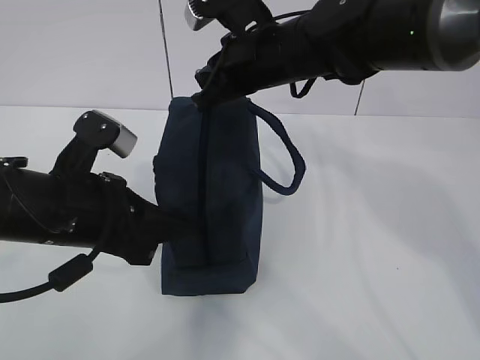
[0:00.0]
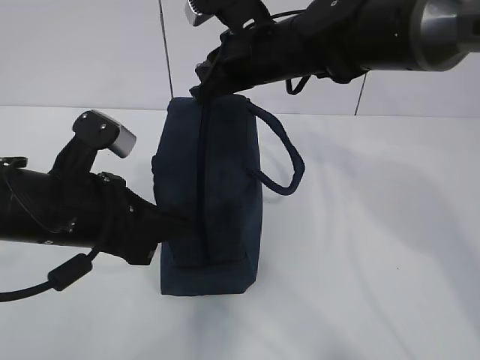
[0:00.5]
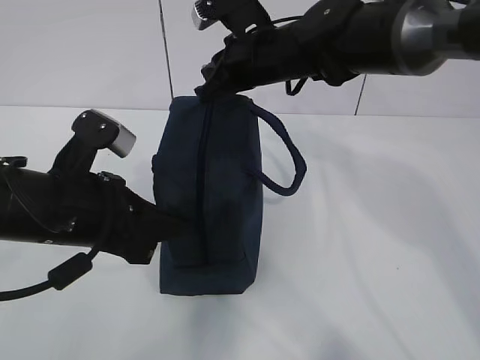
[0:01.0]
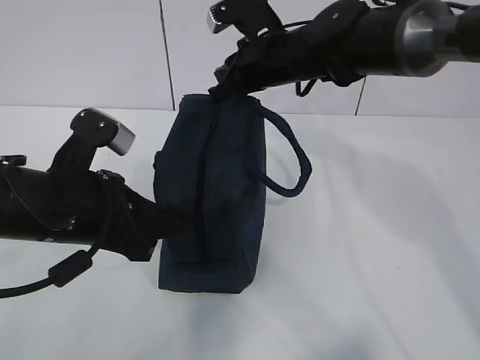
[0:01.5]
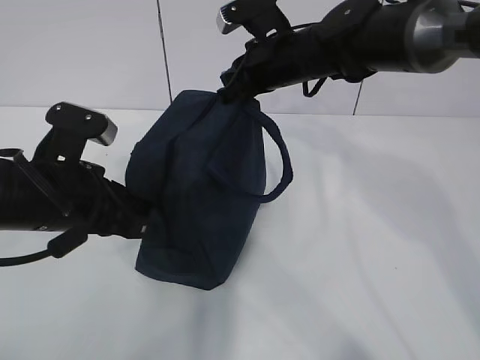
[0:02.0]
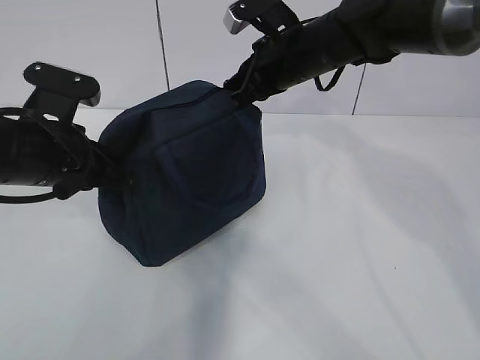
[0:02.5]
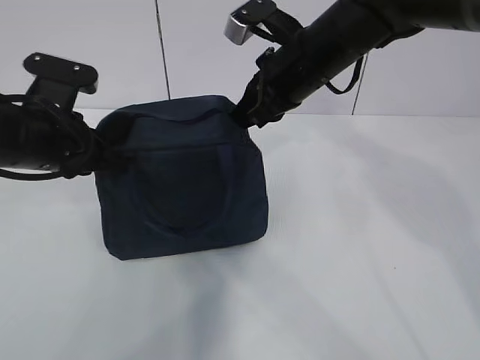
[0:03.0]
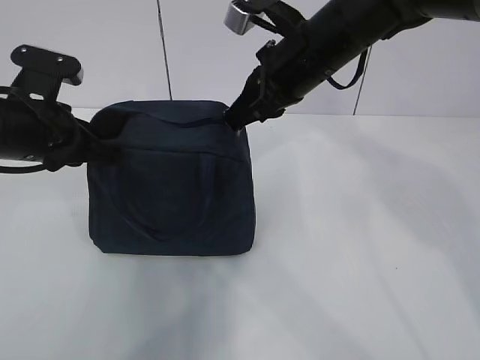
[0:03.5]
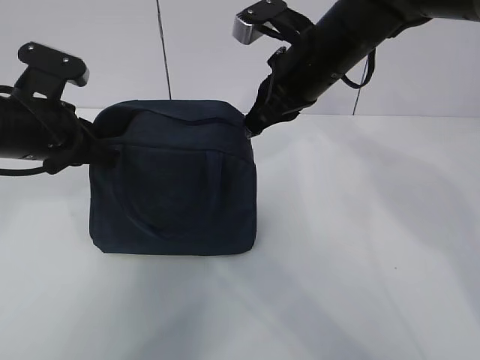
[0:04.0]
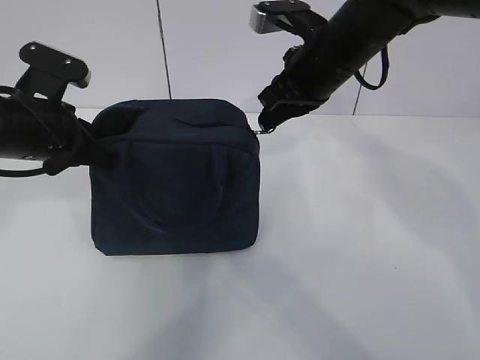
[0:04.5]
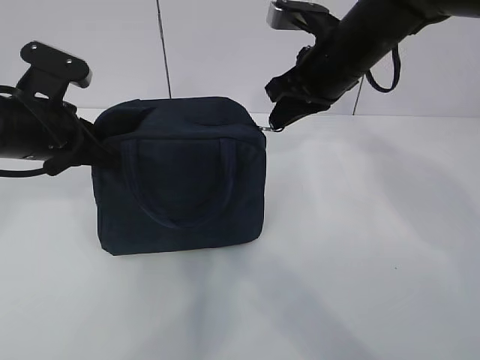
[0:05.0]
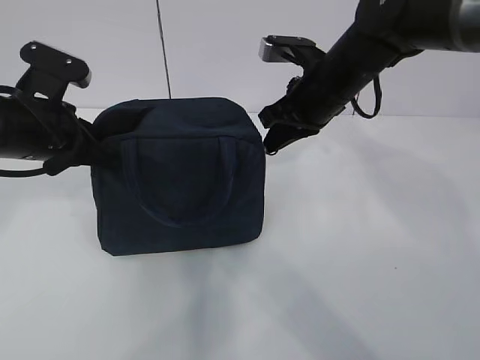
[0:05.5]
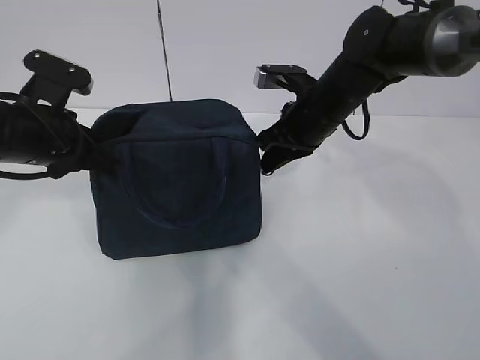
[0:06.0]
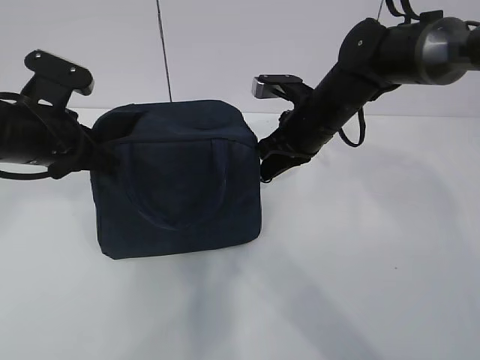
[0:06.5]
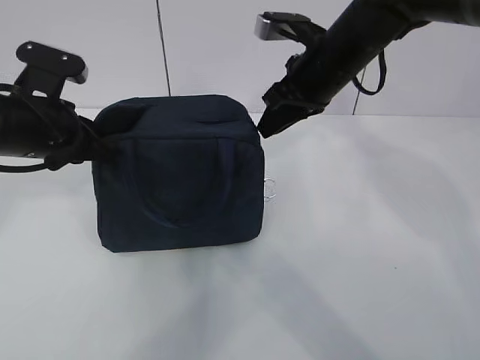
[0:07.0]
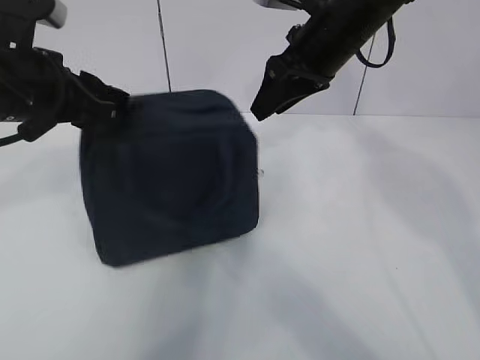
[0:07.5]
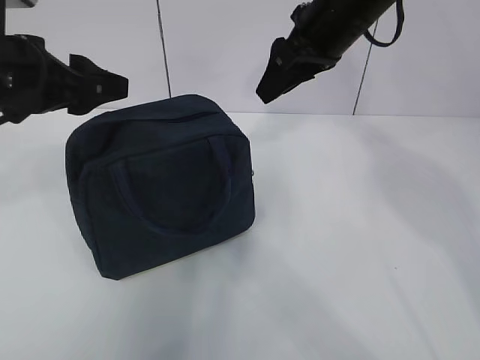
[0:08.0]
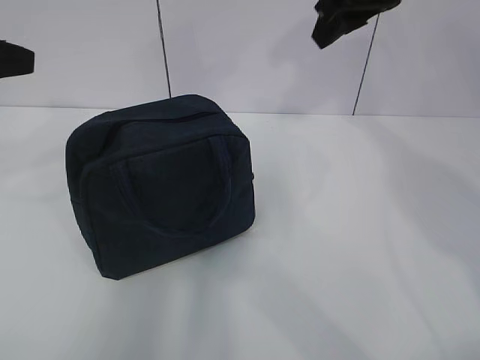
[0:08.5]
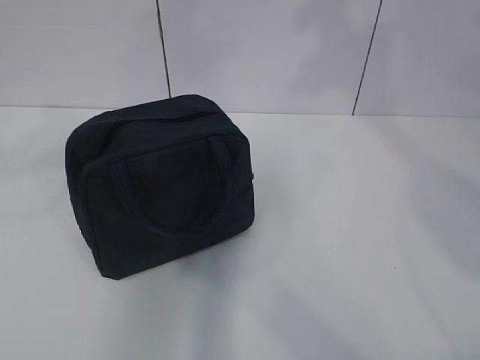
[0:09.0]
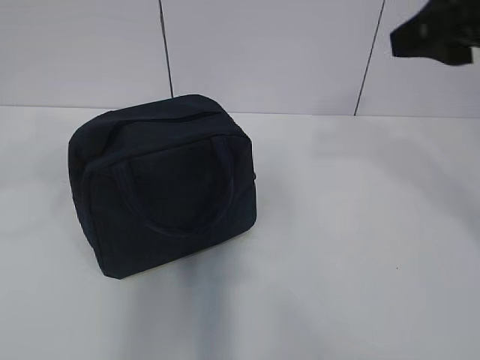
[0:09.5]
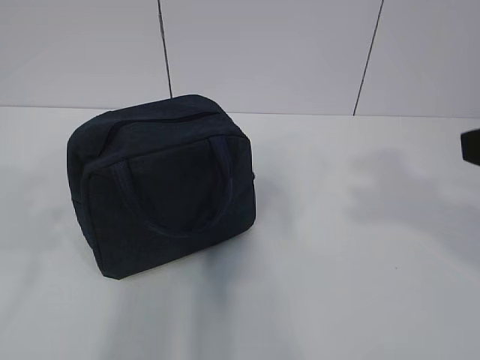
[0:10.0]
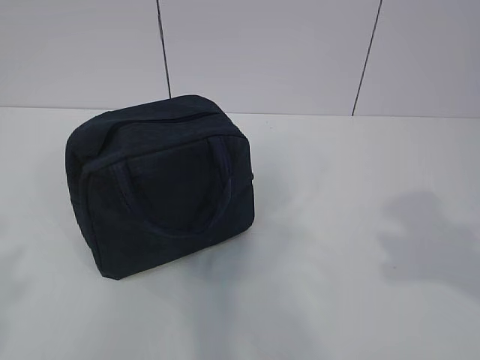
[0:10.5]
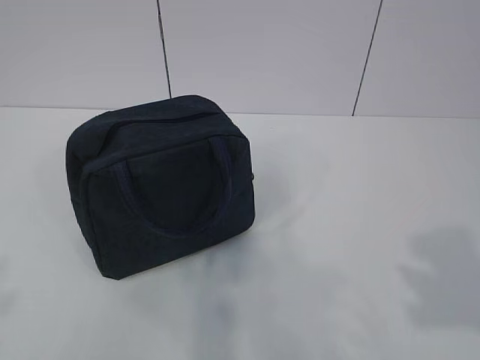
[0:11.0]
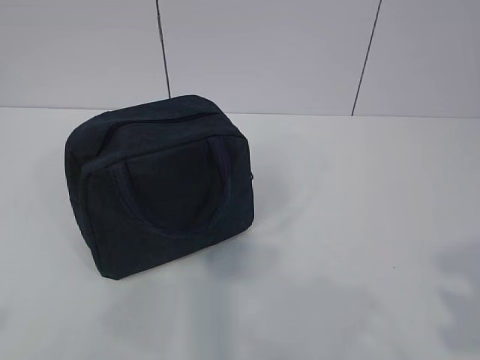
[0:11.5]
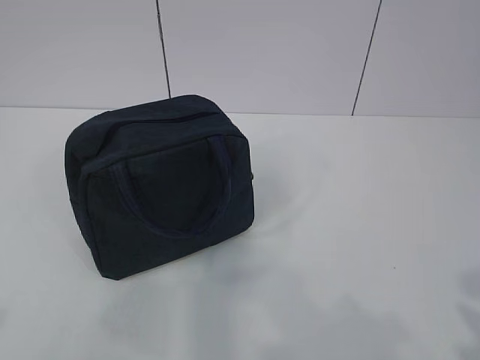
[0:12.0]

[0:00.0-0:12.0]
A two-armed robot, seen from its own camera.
0:00.0 to 0:02.0: The right gripper heads forward, covering roughly 5 cm.
0:02.0 to 0:04.0: The right gripper moves backward, some 5 cm; the left gripper heads forward, covering roughly 5 cm.
0:04.0 to 0:06.0: The right gripper shifts roughly 10 cm downward.
0:06.0 to 0:08.0: The right gripper is displaced upward by approximately 10 cm, and opens up, while the left gripper shifts some 10 cm upward, and opens up.
0:08.0 to 0:10.0: The left gripper travels backward by approximately 20 cm, while the right gripper heads backward and to the right, covering approximately 30 cm.
0:10.0 to 0:12.0: The right gripper is displaced backward by about 15 cm; the left gripper travels backward by roughly 10 cm.

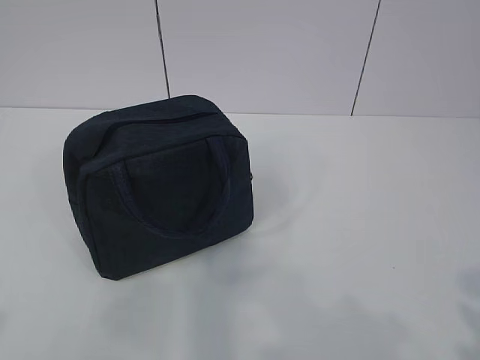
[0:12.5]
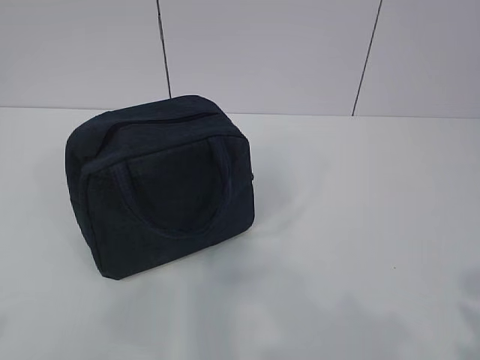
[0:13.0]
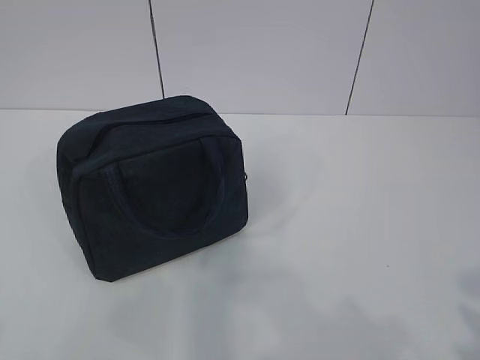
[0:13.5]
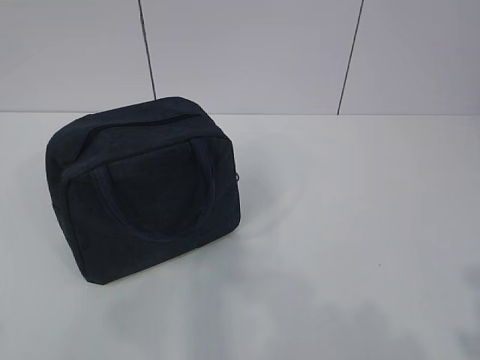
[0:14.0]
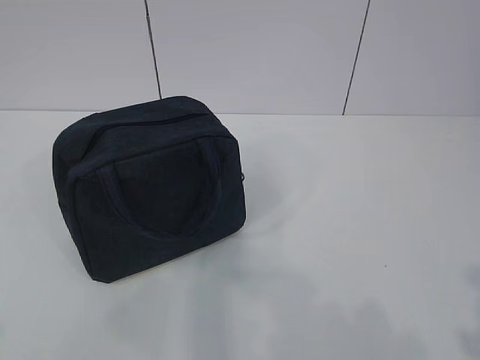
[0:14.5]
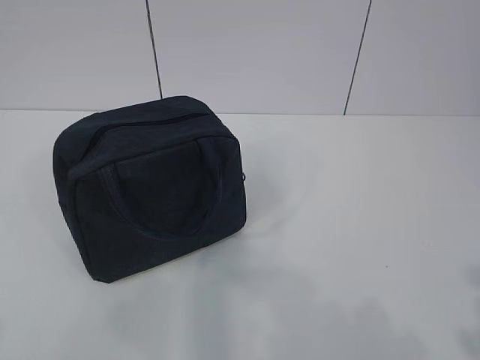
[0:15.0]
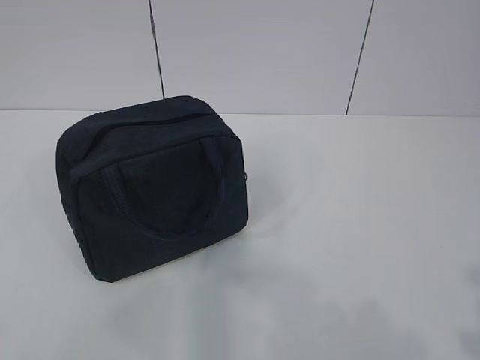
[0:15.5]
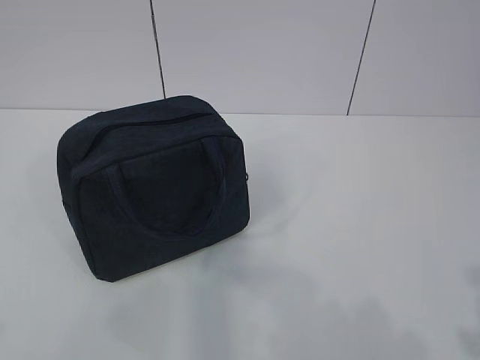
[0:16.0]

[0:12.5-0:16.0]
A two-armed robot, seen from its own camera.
0:12.5 to 0:14.5: The grippers move only a little.
0:14.5 to 0:16.0: Both grippers stay about where they are.

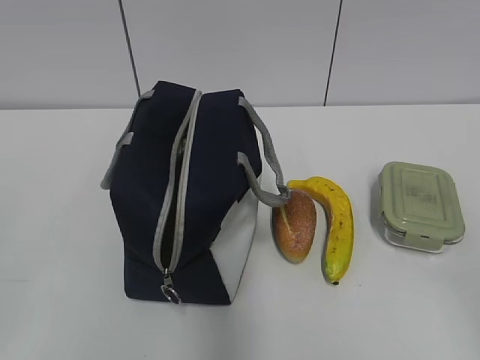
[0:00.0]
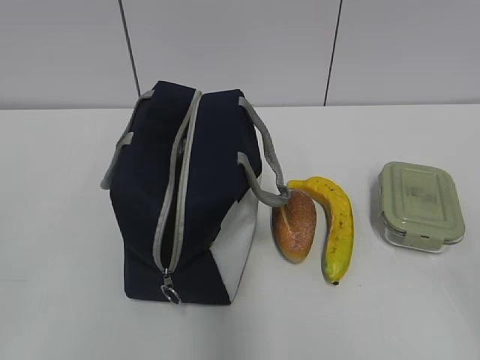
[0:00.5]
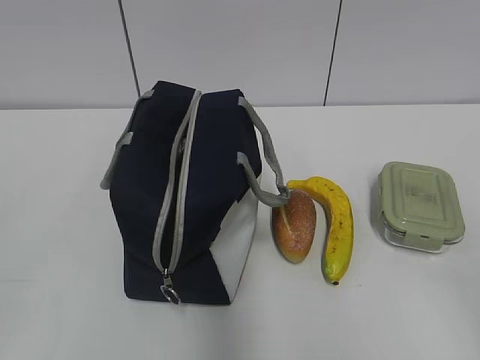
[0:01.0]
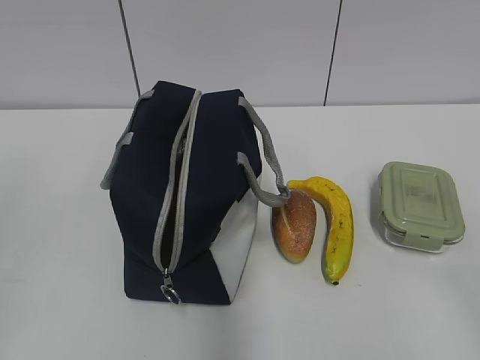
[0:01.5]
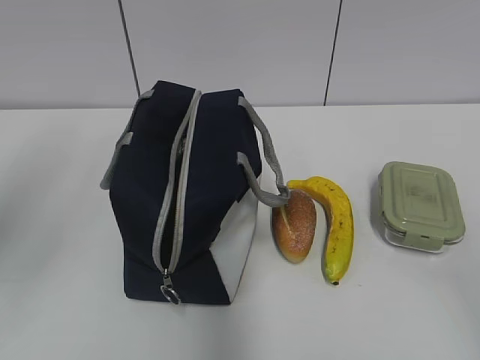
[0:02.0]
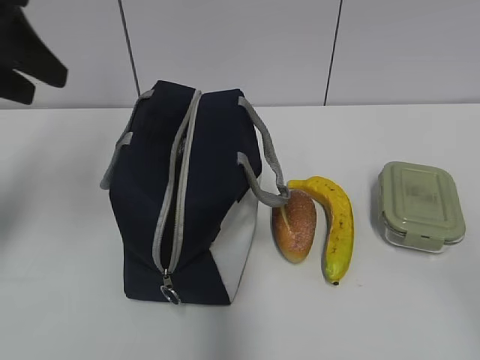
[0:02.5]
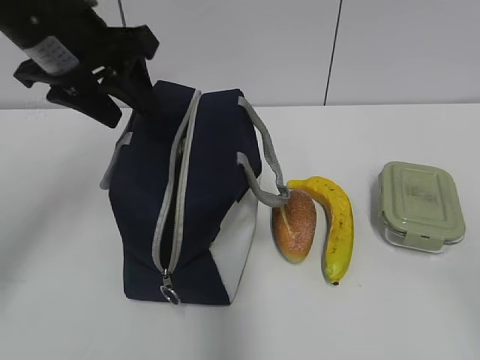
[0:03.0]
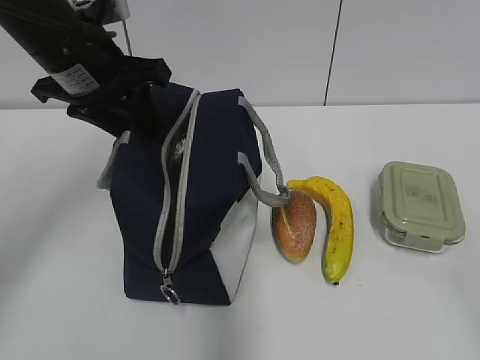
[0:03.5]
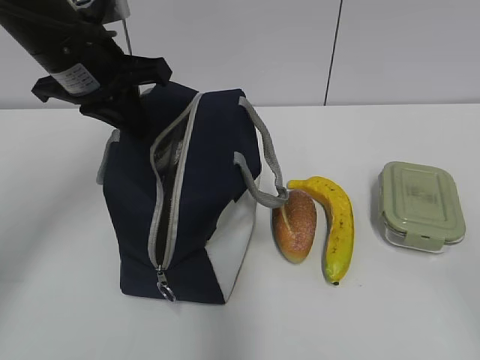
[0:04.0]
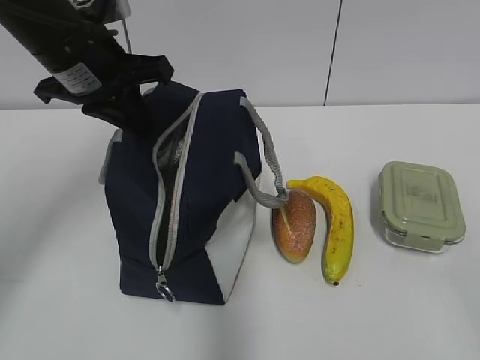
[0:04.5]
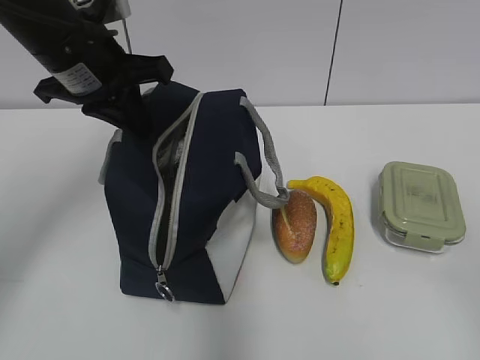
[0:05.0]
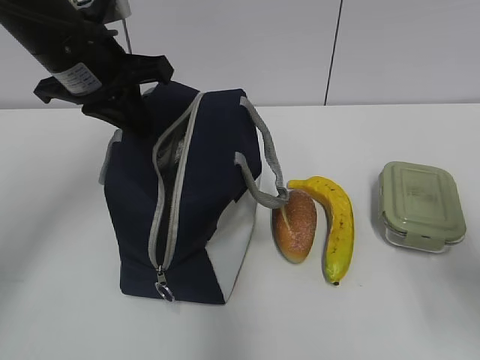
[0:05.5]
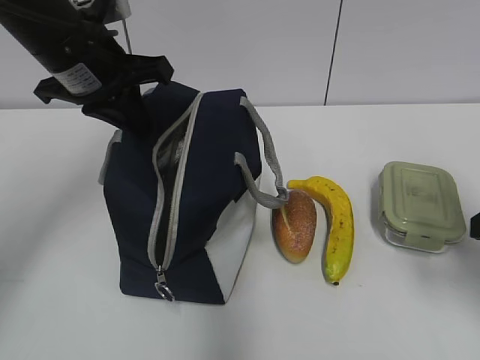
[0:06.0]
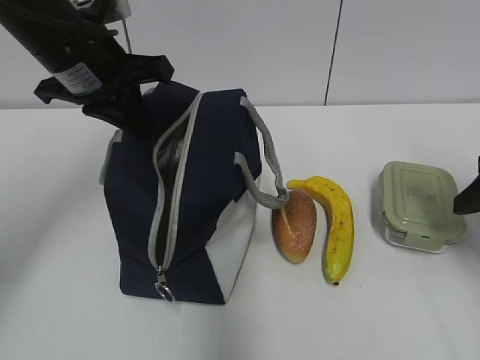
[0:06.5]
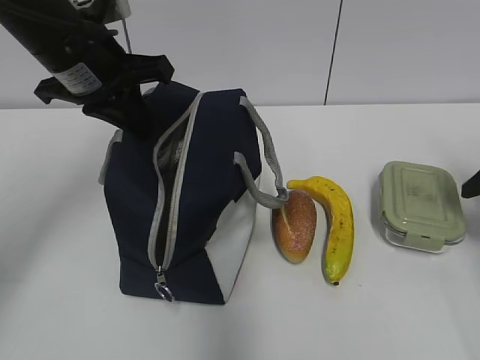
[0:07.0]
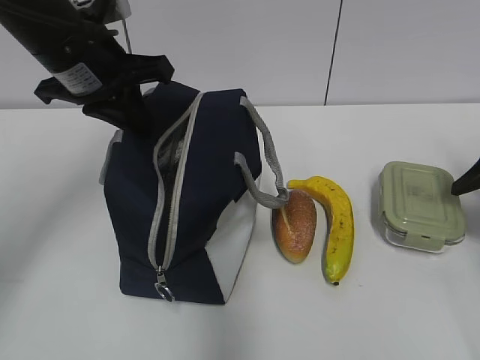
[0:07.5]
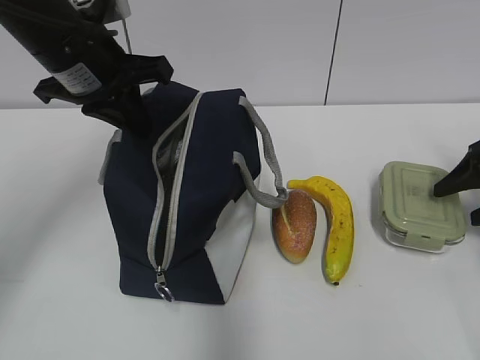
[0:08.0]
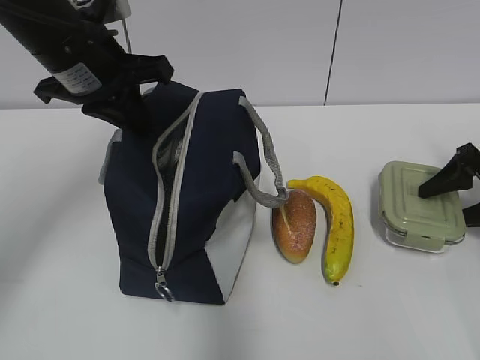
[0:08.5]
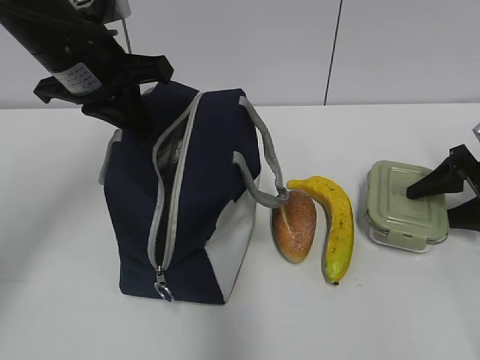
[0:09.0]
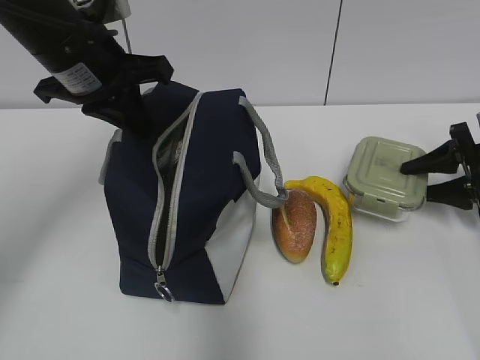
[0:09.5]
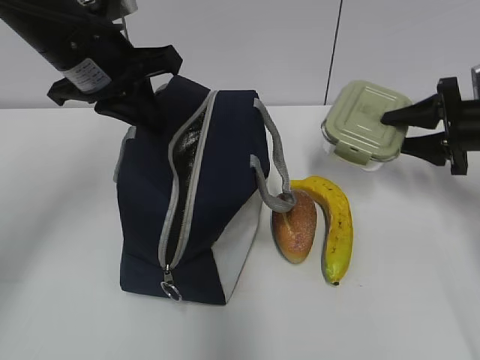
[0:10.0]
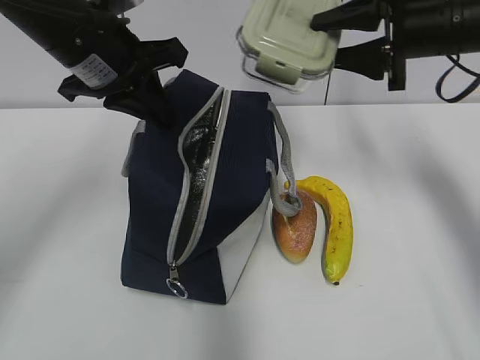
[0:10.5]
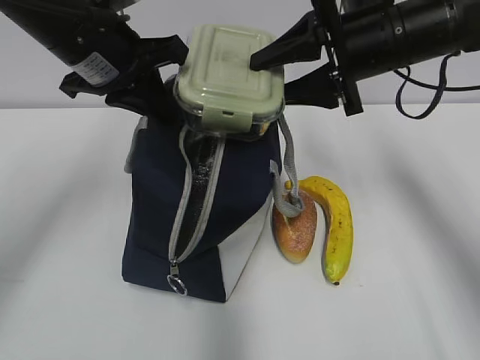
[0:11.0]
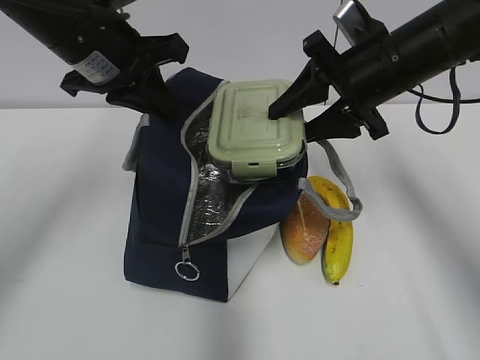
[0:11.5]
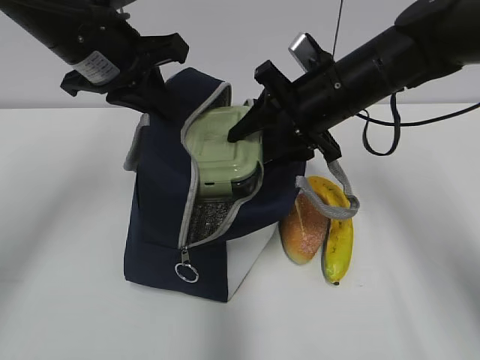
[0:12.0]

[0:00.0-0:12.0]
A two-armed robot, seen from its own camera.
Step, 0:00.0 to 0:09.0: Grab the lunch box with your right hand.
0:02.0 to 0:04.0: The left gripper moves forward and to the right, about 25 cm, and closes its fingers.
0:04.0 to 0:06.0: The right gripper moves forward, some 20 cm.
0:06.0 to 0:08.0: The right gripper is displaced forward, to the right and downward by roughly 20 cm.
0:08.0 to 0:10.0: The right gripper shifts roughly 5 cm forward, and closes up.
0:10.0 to 0:12.0: The right gripper goes about 20 cm to the left.
